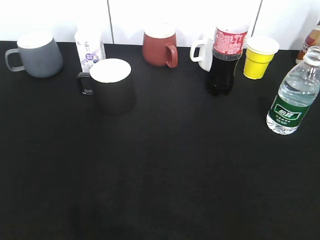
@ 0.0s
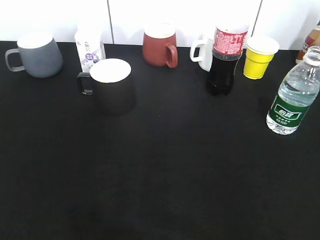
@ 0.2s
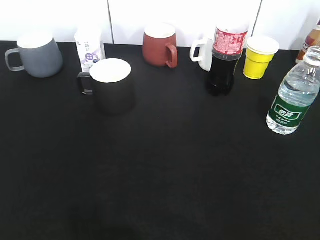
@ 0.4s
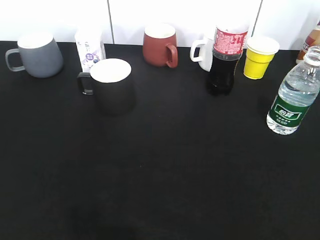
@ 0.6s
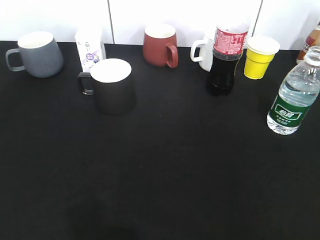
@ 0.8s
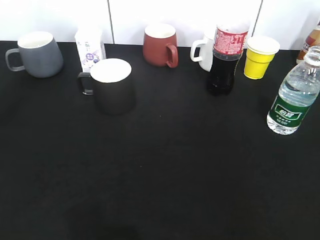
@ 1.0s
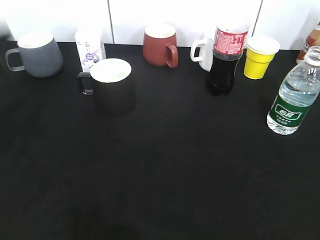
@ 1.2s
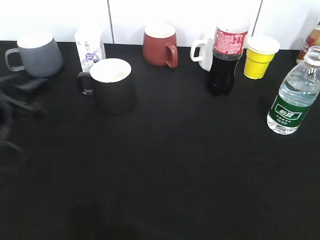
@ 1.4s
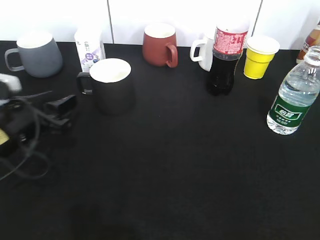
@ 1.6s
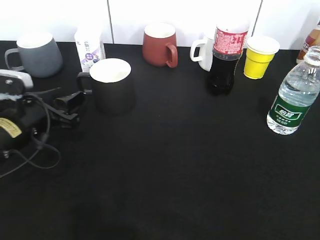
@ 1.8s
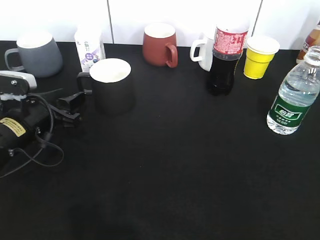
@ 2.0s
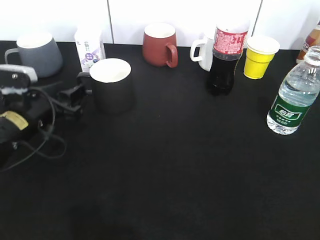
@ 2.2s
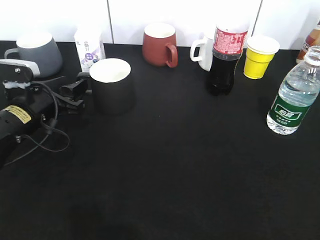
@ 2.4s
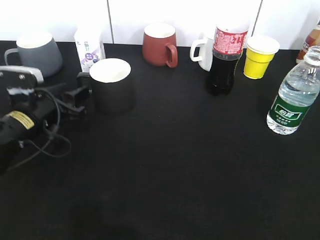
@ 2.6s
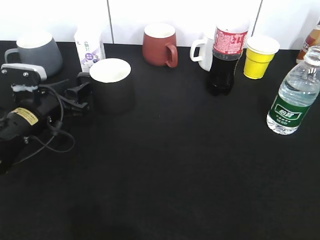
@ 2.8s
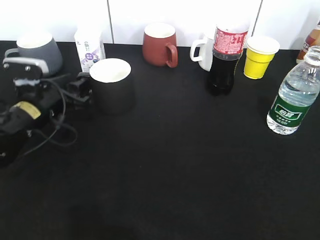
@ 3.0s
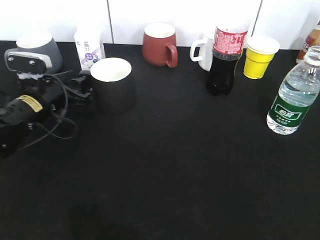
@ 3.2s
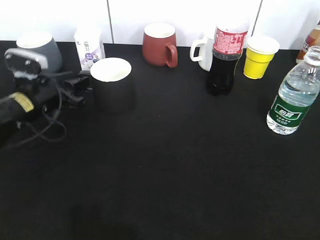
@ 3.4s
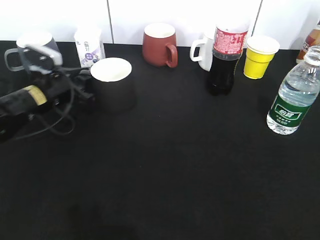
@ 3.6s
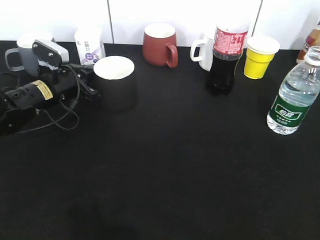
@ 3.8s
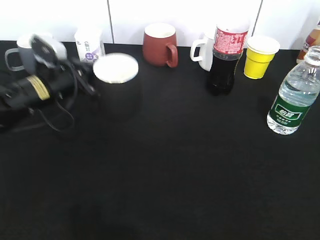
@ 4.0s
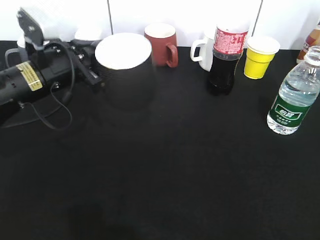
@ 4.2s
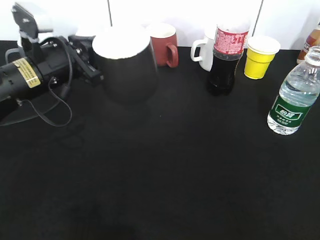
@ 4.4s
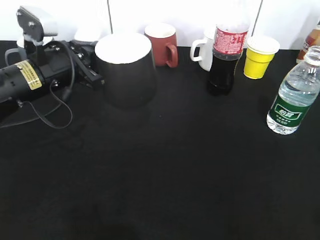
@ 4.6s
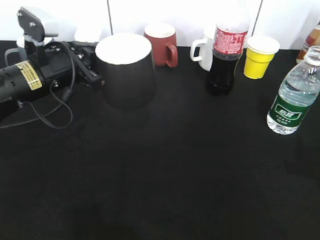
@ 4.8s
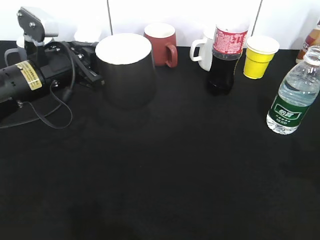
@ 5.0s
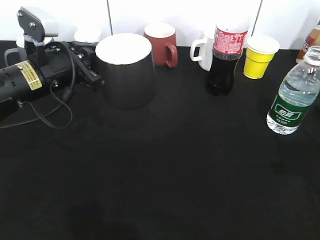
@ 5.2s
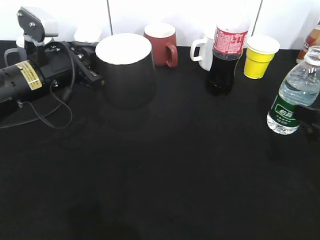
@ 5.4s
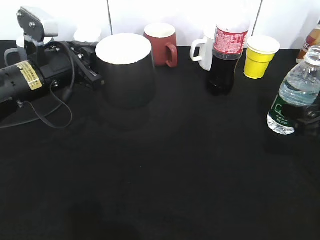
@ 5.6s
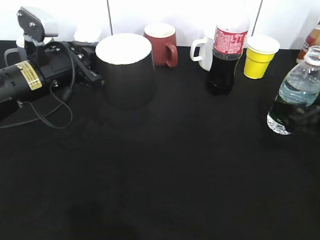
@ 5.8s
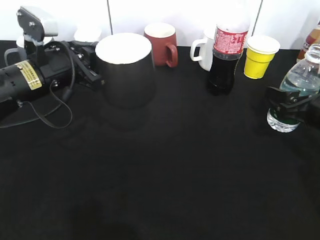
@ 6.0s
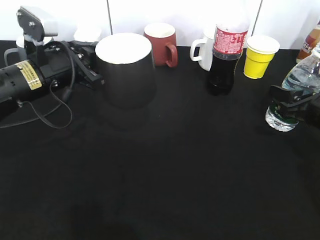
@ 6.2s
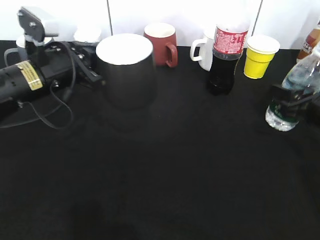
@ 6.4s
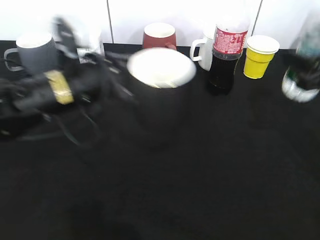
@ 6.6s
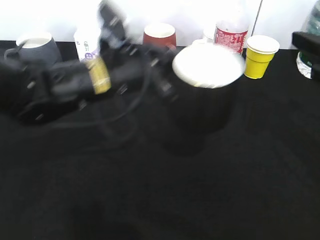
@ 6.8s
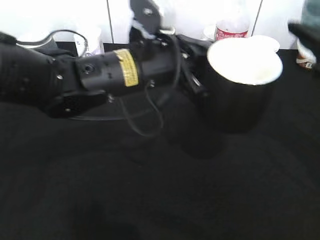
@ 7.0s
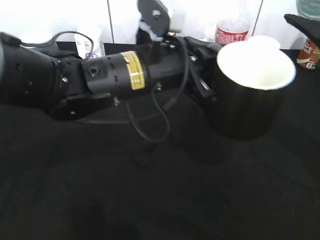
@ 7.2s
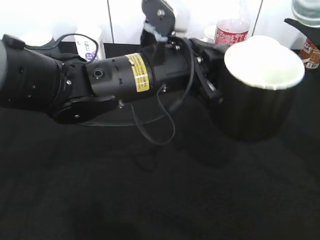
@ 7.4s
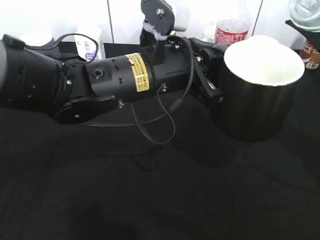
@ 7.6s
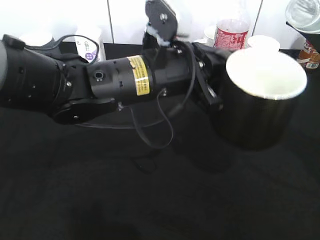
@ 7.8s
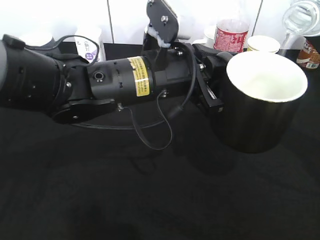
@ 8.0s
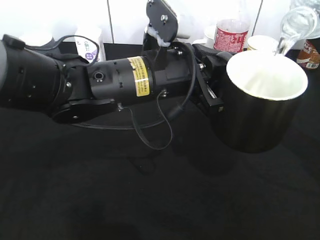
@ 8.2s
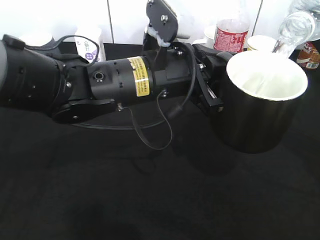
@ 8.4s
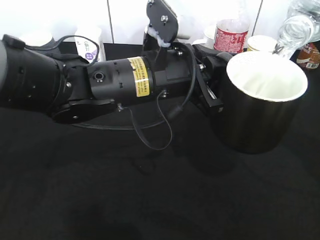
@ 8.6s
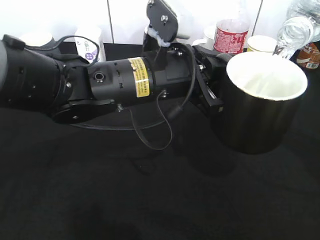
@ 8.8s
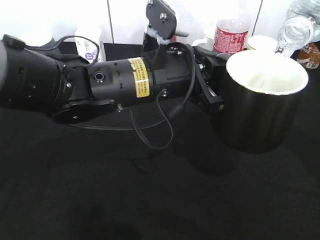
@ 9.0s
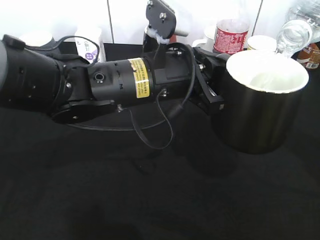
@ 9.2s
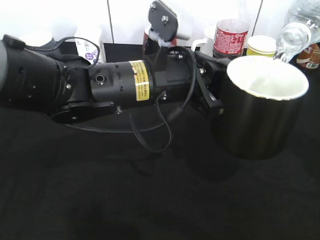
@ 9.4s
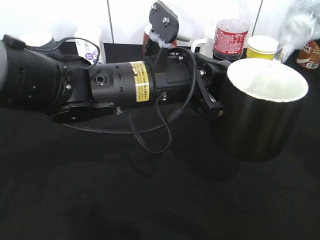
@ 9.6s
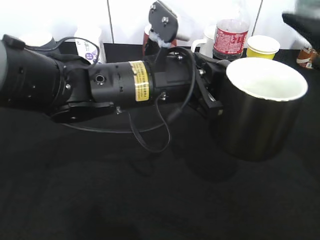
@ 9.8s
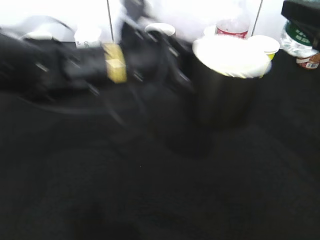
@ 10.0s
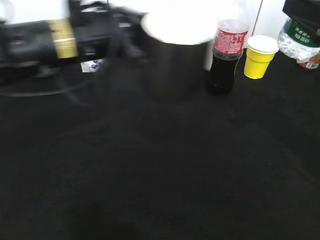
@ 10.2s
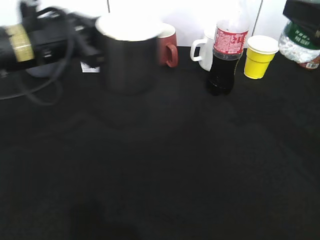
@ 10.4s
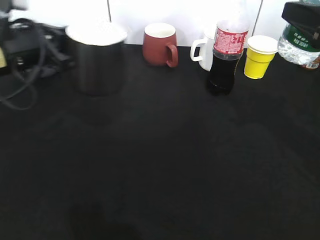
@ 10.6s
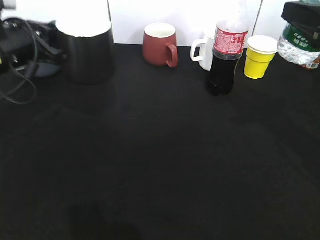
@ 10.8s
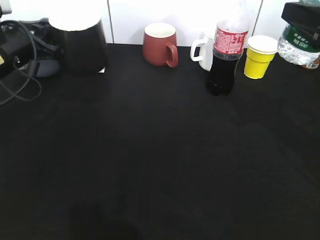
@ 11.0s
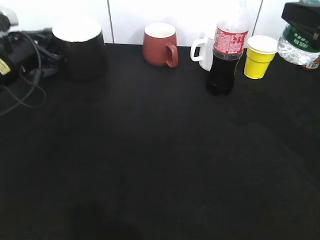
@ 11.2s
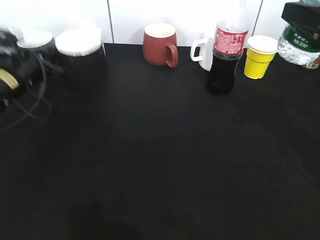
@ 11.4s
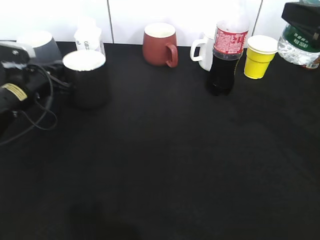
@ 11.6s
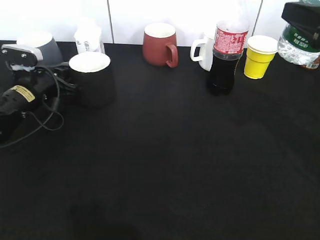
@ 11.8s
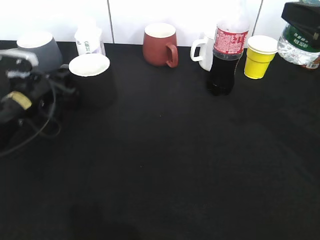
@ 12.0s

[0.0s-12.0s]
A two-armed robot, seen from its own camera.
Step, 0.0s to 3.8s: Grasp the black cup with left gripper.
Step, 4.0s to 4.4s: Lift the black cup with left gripper.
Step, 4.6s to 6.0s: Grasp the bottle with water with right gripper.
Step, 6.2s to 9.8s: Pour the water from bottle to cup with right gripper.
0.0s to 1.6s: The left gripper goes some 30 cm forward and downward.
1.6s to 3.0s: The left gripper heads forward, covering approximately 5 cm.
3.0s to 4.4s: The left gripper shifts about 10 cm upward, and closes its fingers.
4.4s to 6.0s: The right gripper travels forward and downward by approximately 30 cm, and opens up.
6.0s to 7.6s: The left gripper is displaced to the right by roughly 15 cm. The right gripper goes about 15 cm upward, and closes up.
7.6s to 9.0s: There are only small adjustments of the grippers.
9.0s to 10.4s: The left gripper is displaced to the left by roughly 15 cm.
10.4s to 12.0s: The left gripper travels downward and to the left by roughly 15 cm, and opens.

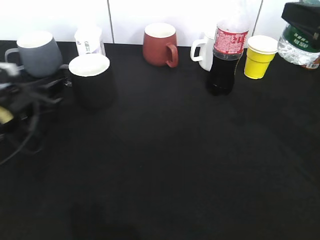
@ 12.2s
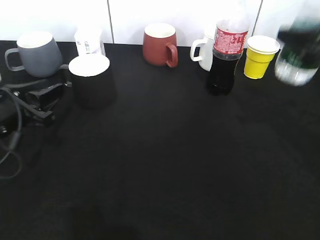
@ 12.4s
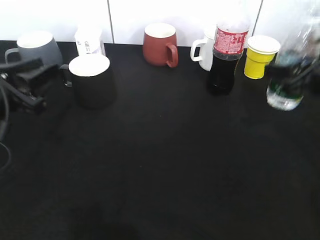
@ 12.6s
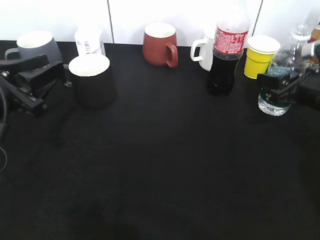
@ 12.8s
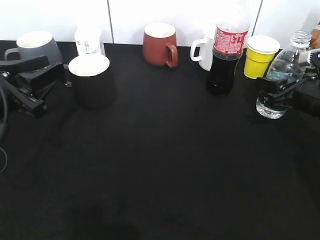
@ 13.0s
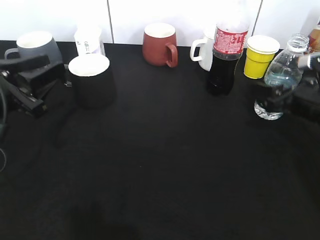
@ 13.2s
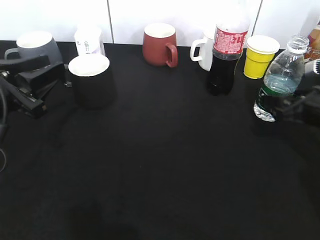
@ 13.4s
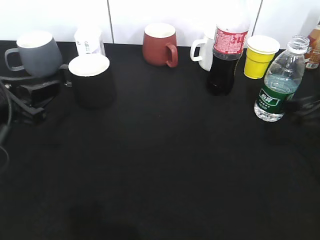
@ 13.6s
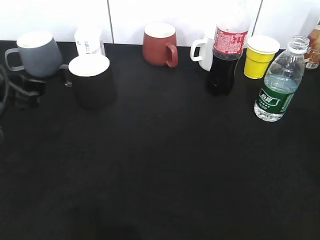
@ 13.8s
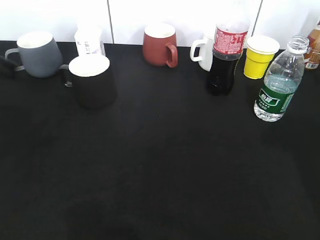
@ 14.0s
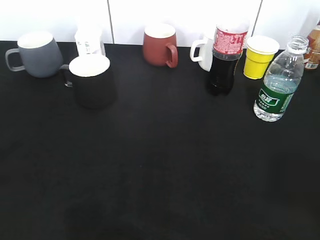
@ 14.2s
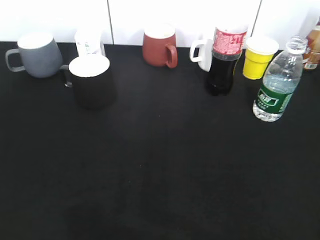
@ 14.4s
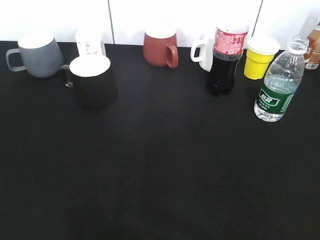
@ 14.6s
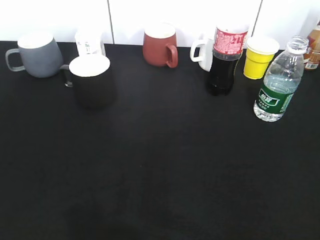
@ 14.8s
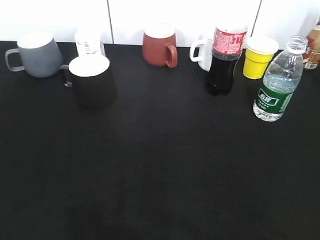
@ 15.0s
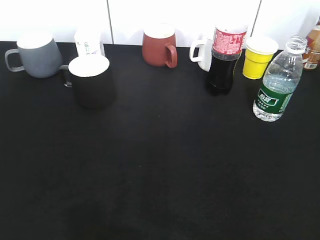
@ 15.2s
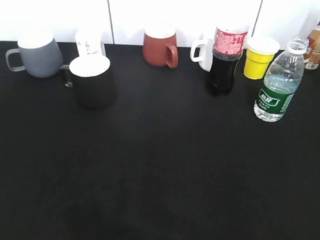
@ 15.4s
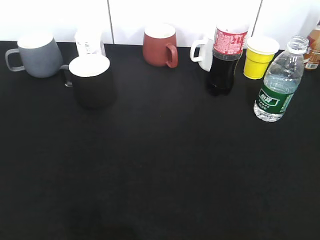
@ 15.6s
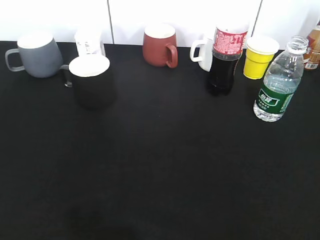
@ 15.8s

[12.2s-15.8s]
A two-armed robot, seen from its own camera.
Step, 12.4s to 13.6s: Place the water bottle on the table with right gripper.
12.2s to 14.0s: The right gripper moves backward, about 5 cm, moves about 15 cm downward and comes back, and opens its fingers. Meanwhile the left gripper moves upward and backward, roughly 25 cm.
14.0s to 15.8s: The left gripper heads backward and to the left, covering roughly 20 cm. Meanwhile the right gripper moves backward, approximately 20 cm.

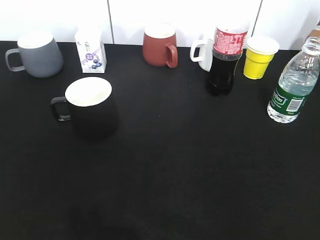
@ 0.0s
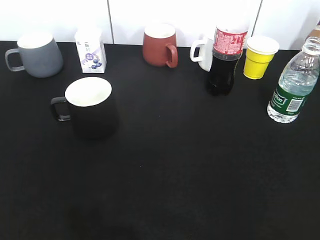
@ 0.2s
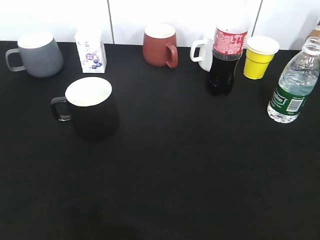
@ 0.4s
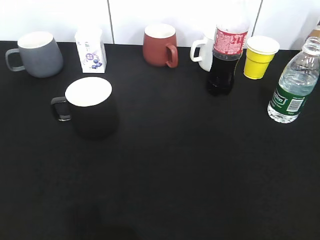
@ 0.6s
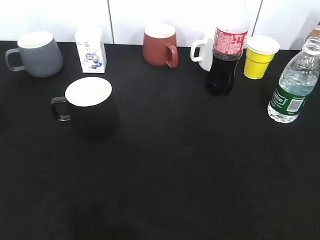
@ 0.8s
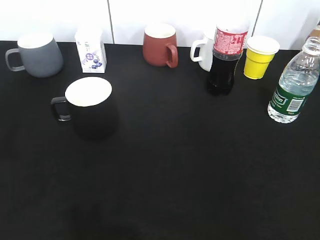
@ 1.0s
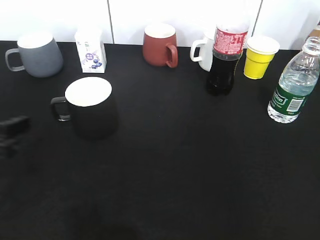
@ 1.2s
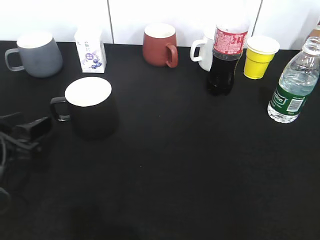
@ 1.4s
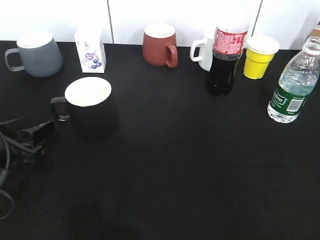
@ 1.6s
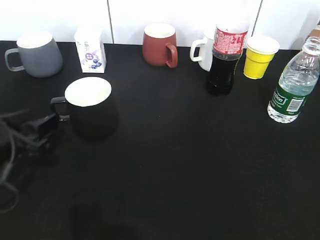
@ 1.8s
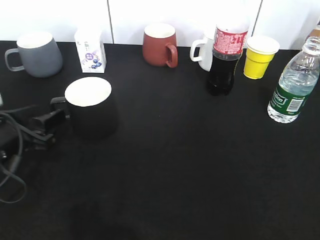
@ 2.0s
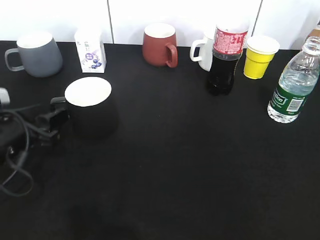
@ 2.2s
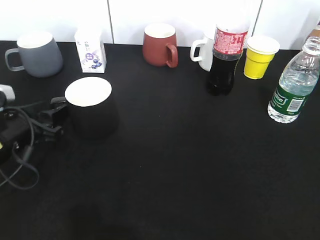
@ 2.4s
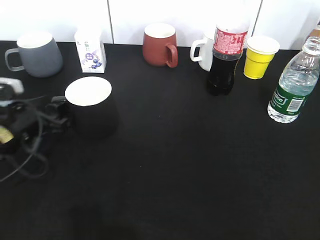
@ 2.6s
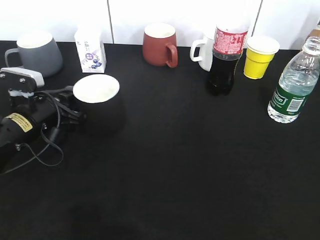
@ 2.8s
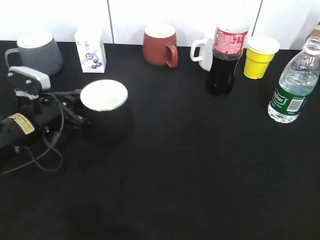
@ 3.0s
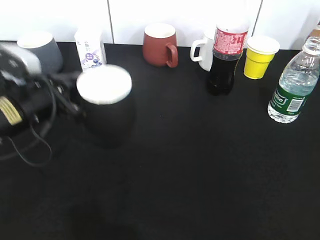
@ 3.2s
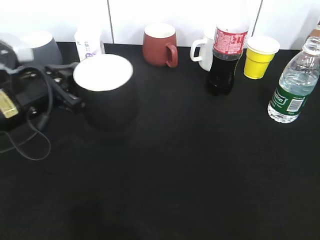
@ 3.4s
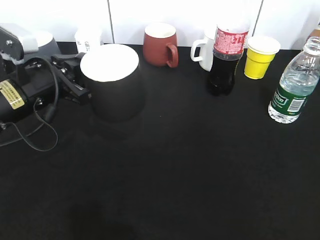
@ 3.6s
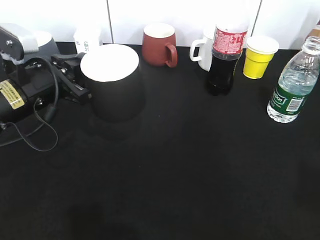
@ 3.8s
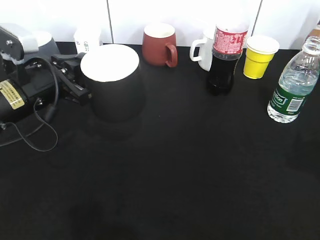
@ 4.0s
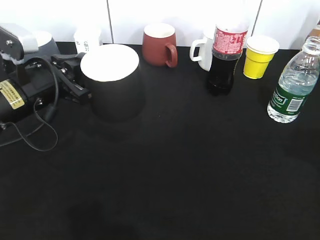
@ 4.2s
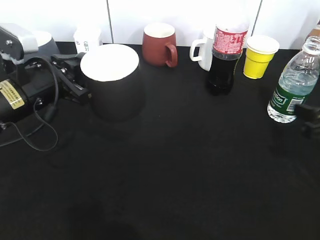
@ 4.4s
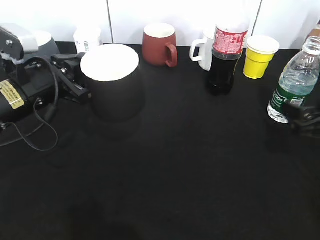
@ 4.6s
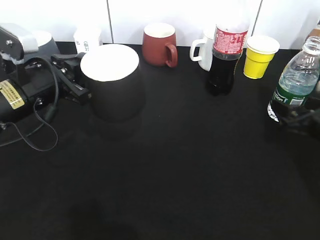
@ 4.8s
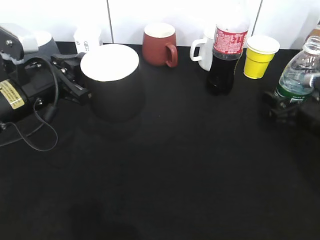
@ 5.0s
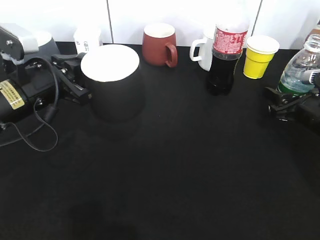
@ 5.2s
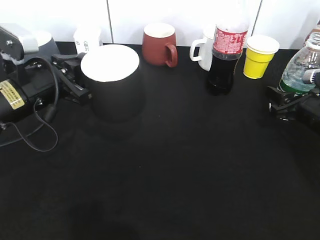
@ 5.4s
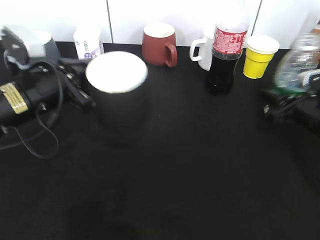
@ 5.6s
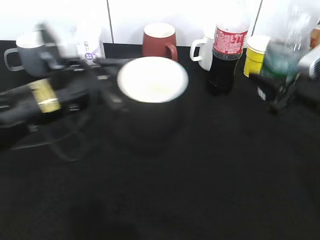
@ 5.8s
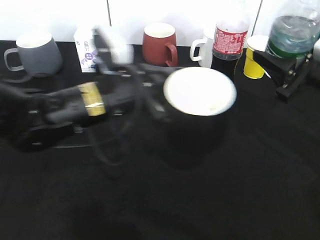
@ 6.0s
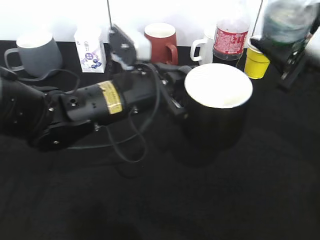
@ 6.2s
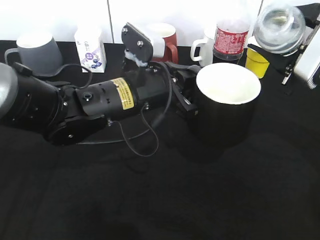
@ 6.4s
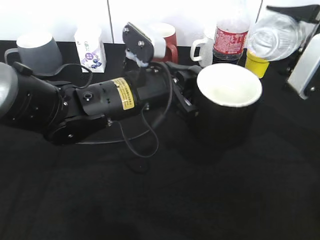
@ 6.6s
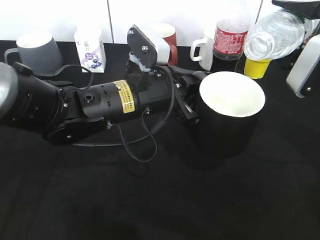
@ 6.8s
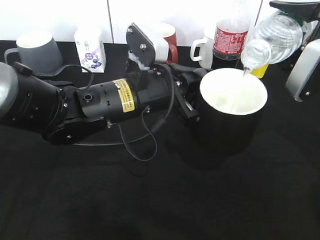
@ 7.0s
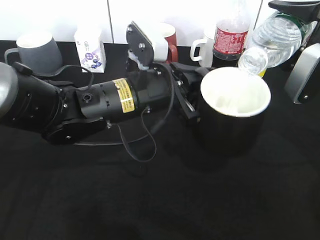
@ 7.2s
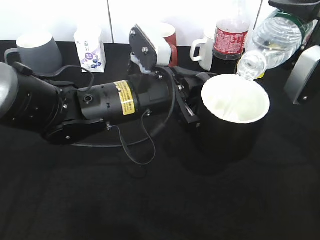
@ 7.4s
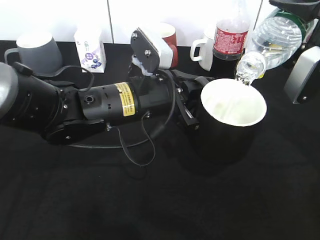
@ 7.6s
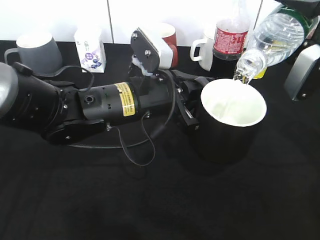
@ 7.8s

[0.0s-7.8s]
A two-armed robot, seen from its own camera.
Step, 0.0s to 2.8s: Grasp the black cup with left gripper.
Step, 3.0s to 3.4s: Lift the black cup with left gripper.
Step, 3.8s to 5.2s: Grasp the bottle with water with right gripper.
0.0s to 1.6s: The left gripper is displaced forward and downward by approximately 25 cm.
1.6s to 3.2s: The left gripper is displaced forward and to the right by about 10 cm, and closes its fingers.
3.2s to 4.6s: The right gripper goes roughly 30 cm forward and downward, and opens its fingers.
4.6s to 6.2s: The right gripper heads upward and forward, covering roughly 10 cm, and closes up. Meanwhile the left gripper is displaced to the right by about 15 cm.
